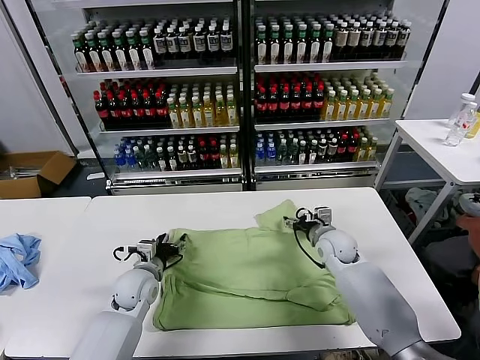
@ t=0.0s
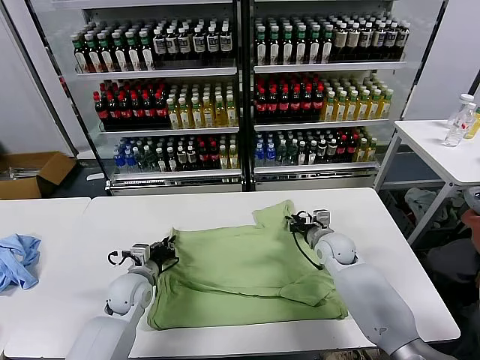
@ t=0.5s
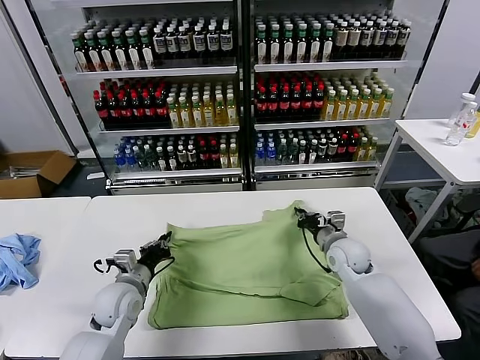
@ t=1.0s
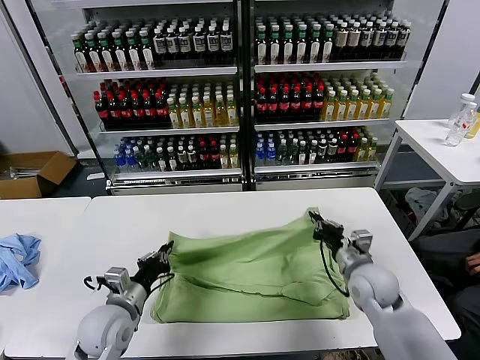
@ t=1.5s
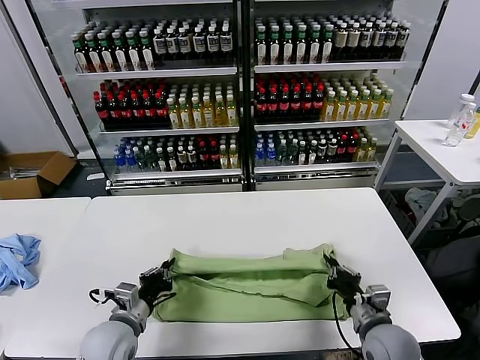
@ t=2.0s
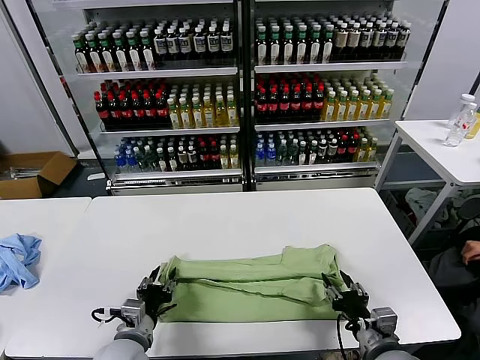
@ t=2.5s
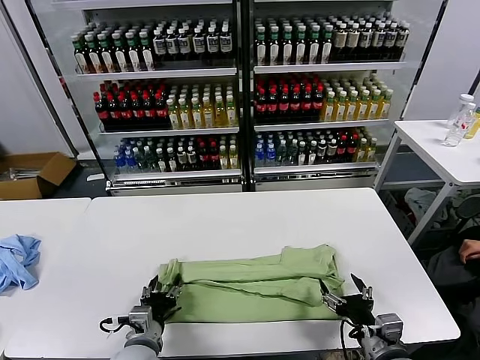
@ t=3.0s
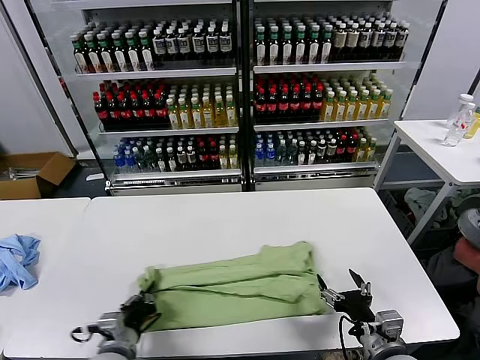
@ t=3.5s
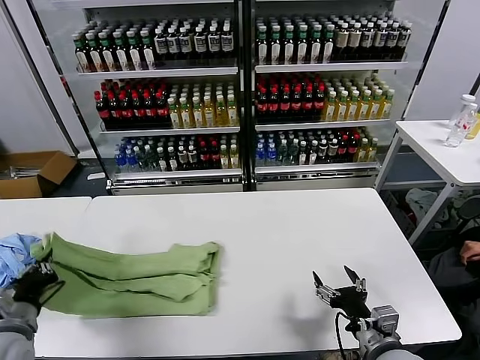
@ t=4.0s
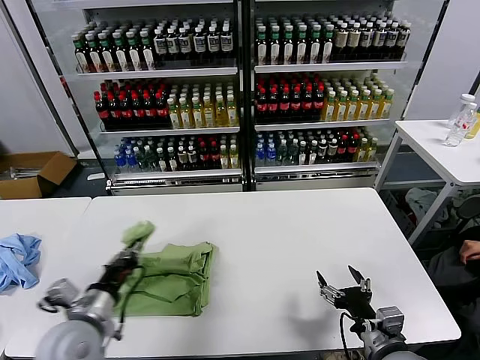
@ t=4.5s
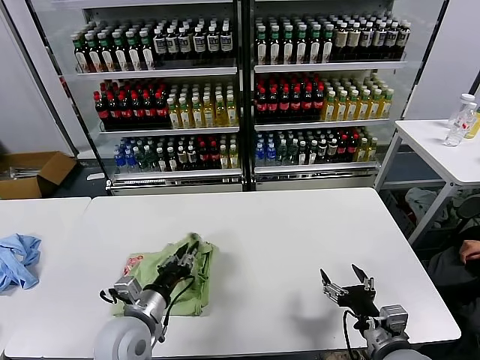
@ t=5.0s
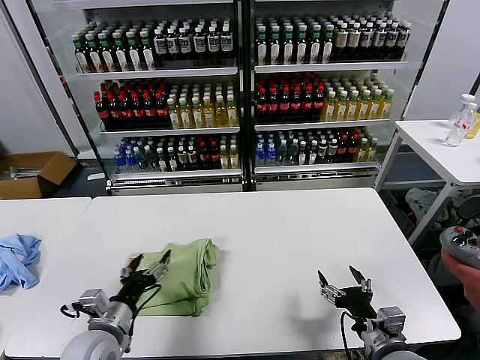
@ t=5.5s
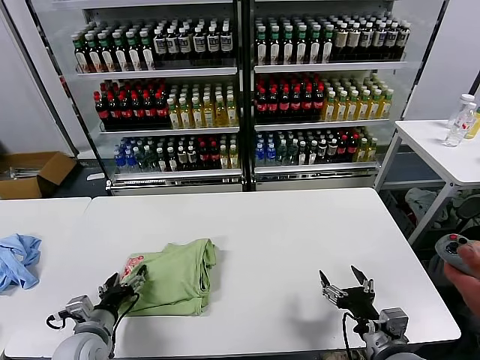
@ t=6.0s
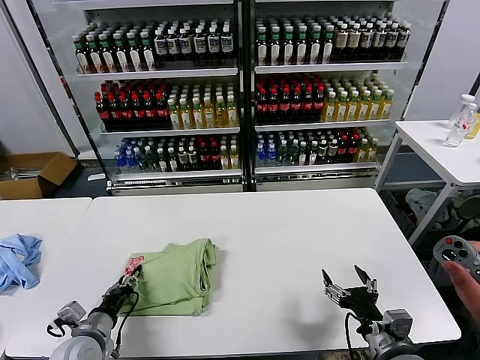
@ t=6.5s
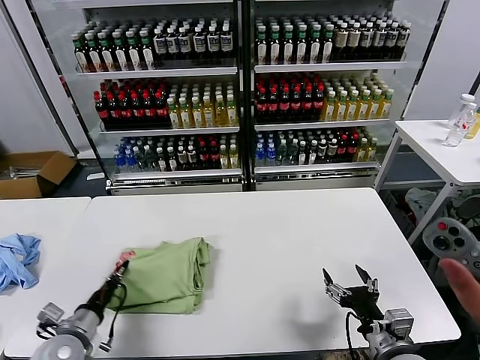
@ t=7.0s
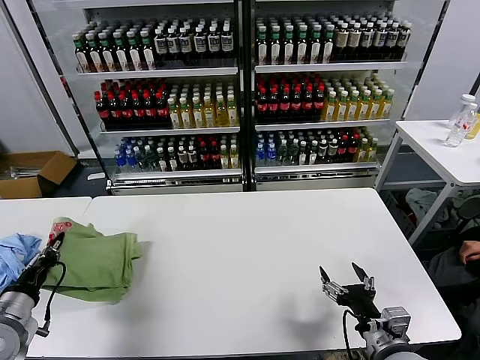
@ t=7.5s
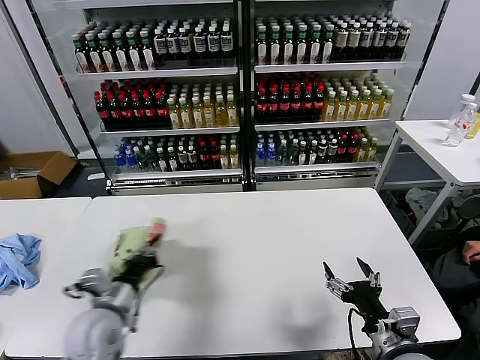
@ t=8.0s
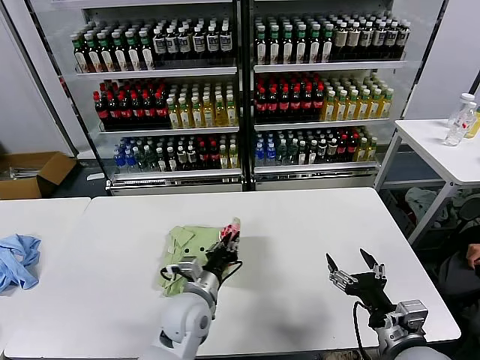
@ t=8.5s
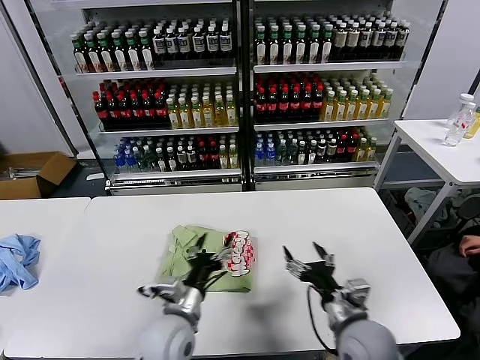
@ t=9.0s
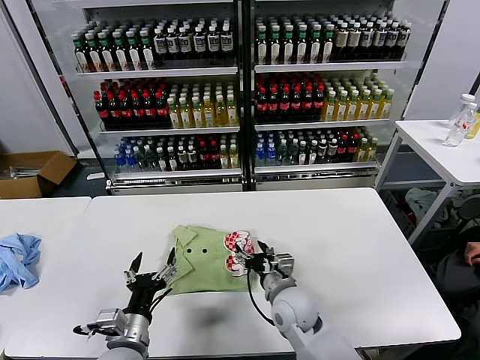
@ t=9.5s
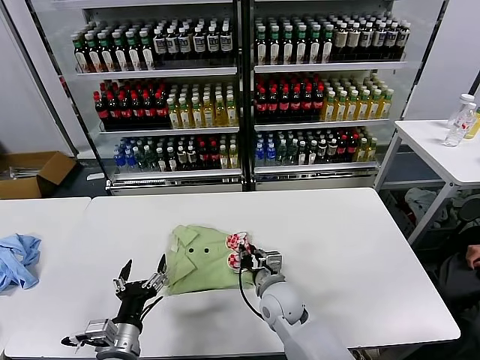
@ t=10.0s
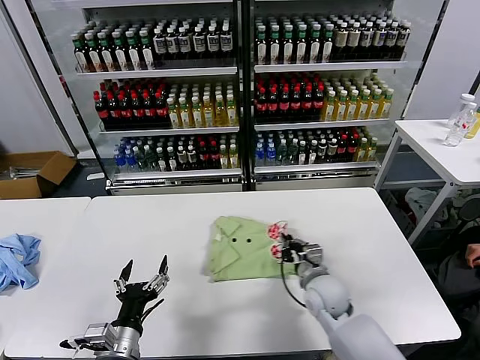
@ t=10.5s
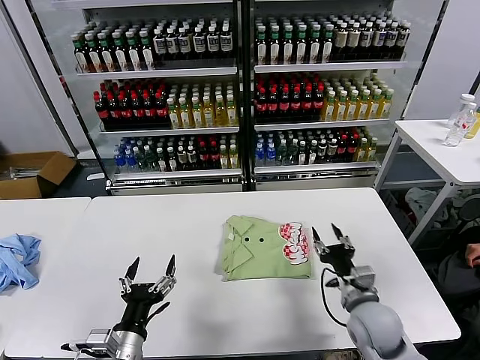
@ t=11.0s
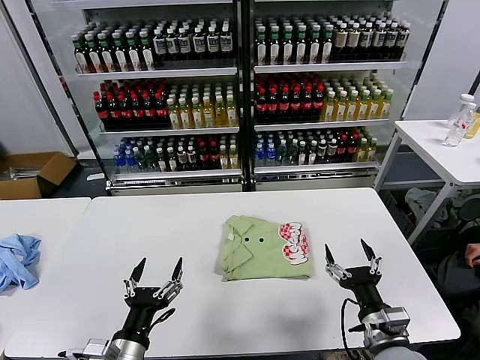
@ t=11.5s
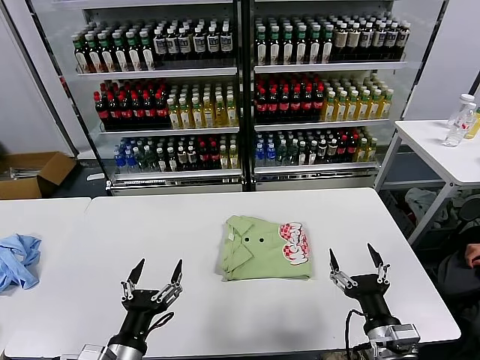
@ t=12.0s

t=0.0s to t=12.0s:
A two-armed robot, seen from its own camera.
Task of the whole recording: fold and organize the clothes.
Step, t=1.0s to t=2.0s: use both grippers to drag the upper edge of the fabric backward and fold it over the lower edge.
Step, t=2.5s to t=3.5s: use the left gripper to clamp the left edge of the fabric.
Step, t=4.0s to t=5.0s: use the left gripper to drag the left edge of the fabric to the left and folds it over the right edge.
Step, t=5.5s to t=8.5s: Flip the folded clothes over with left gripper.
Step, t=9.0s to t=10.5s: Drag the clothes to the center of the table.
t=0.0s to t=2.0s: The right gripper goes some 25 cm backward, and closes up. Meanwhile the left gripper heads backward, covering approximately 15 cm, and closes up.
t=2.0s to t=4.0s: The right gripper shifts by about 5 cm, and opens its fingers. The left gripper moves to the left and upward, some 15 cm, and opens, then closes once more.
t=4.0s to t=6.0s: The left gripper travels downward and to the right by roughly 15 cm, and opens up.
t=6.0s to t=8.0s: The left gripper heads upward, covering some 10 cm, goes to the left and returns, roughly 10 cm each way, and closes its fingers.
t=8.0s to t=10.0s: The right gripper goes roughly 25 cm to the left and forward, and closes up. Meanwhile the left gripper heads backward and downward, covering roughly 10 cm, reaches roughly 15 cm to the right, then returns, and opens its fingers.
t=10.0s to t=12.0s: The left gripper shifts approximately 5 cm backward, while the right gripper shifts about 25 cm to the right and backward, and opens up.
